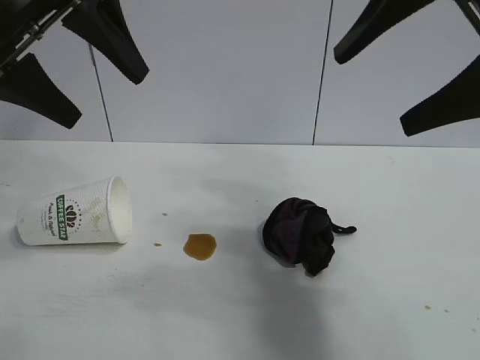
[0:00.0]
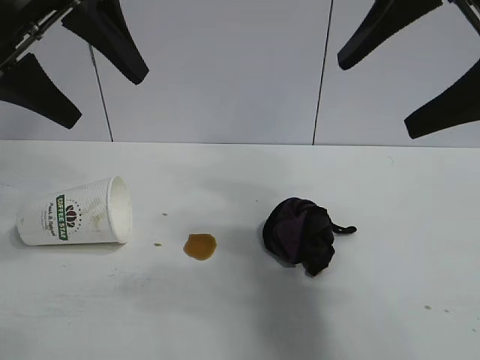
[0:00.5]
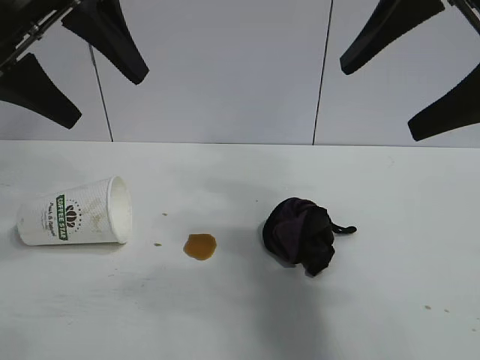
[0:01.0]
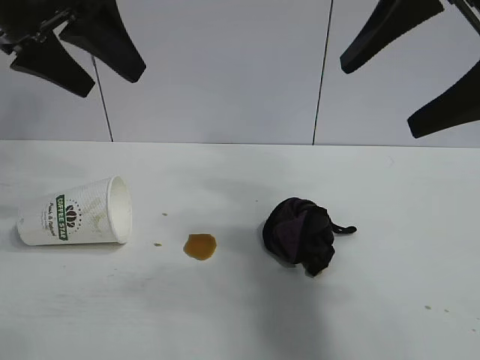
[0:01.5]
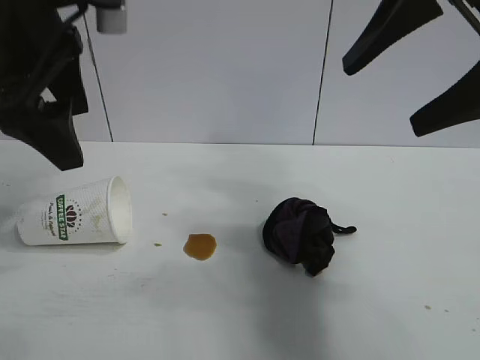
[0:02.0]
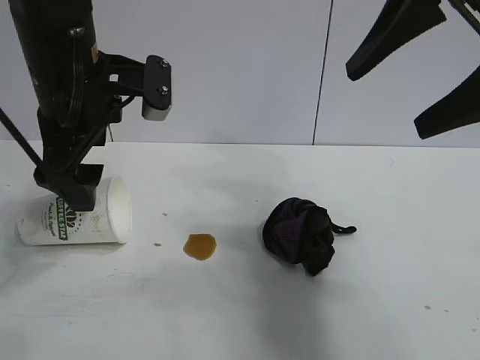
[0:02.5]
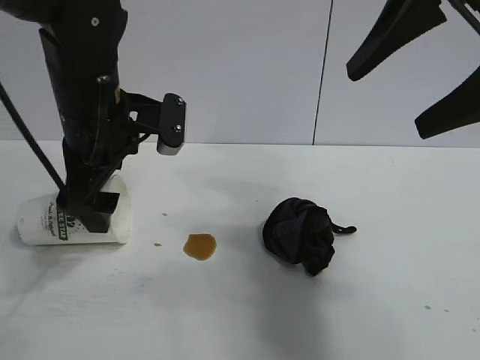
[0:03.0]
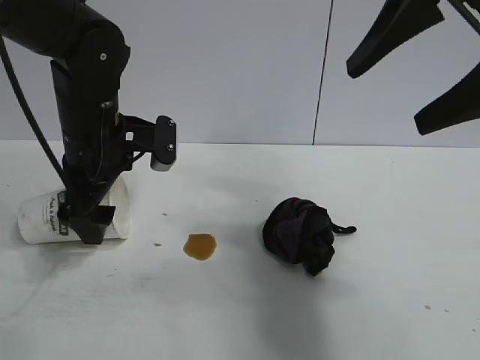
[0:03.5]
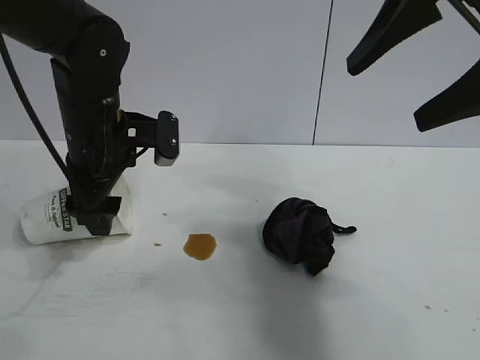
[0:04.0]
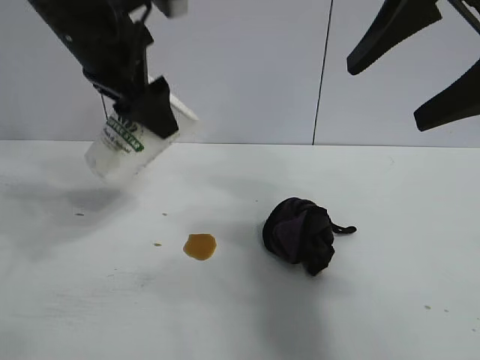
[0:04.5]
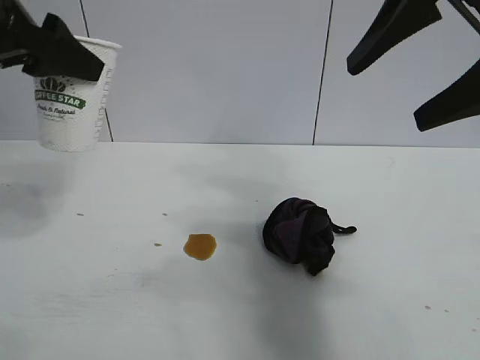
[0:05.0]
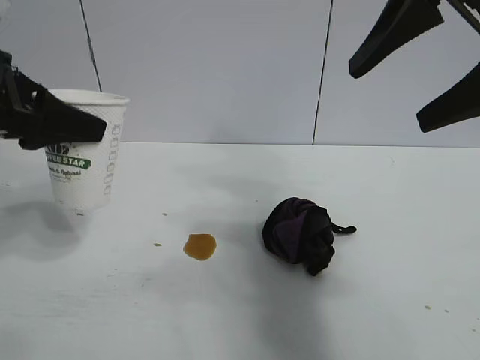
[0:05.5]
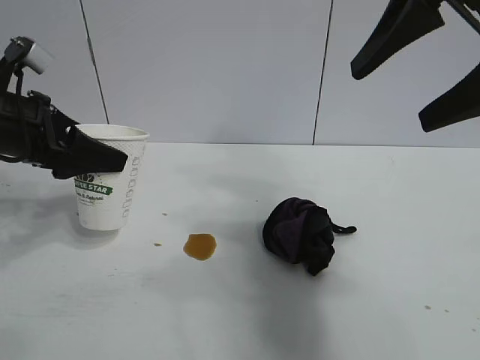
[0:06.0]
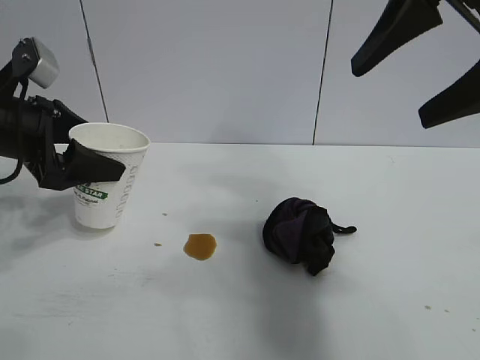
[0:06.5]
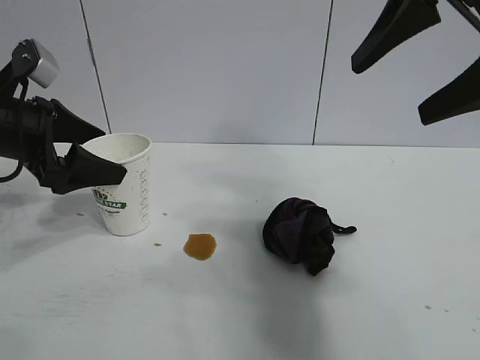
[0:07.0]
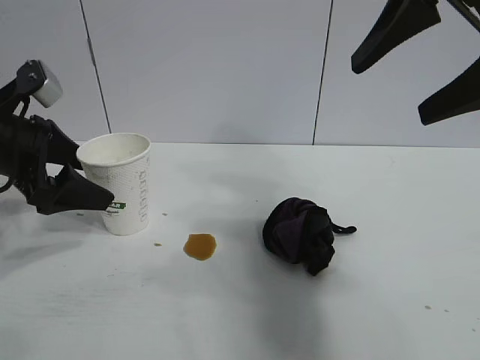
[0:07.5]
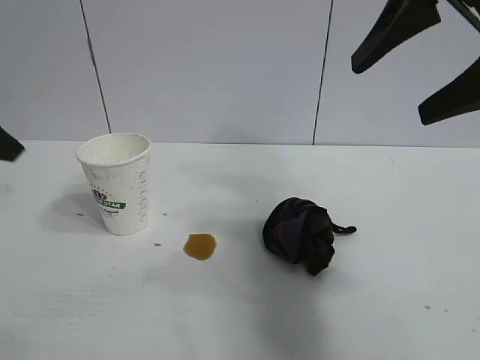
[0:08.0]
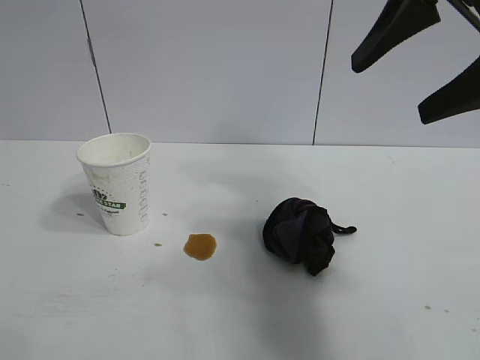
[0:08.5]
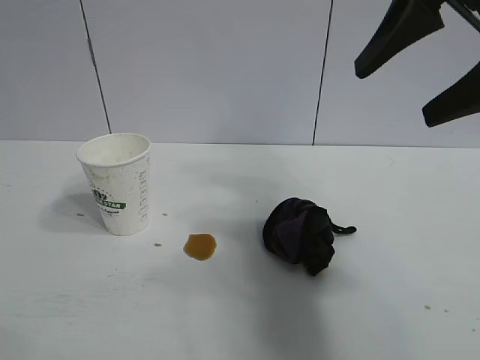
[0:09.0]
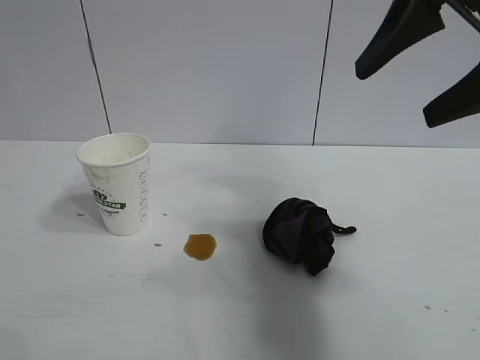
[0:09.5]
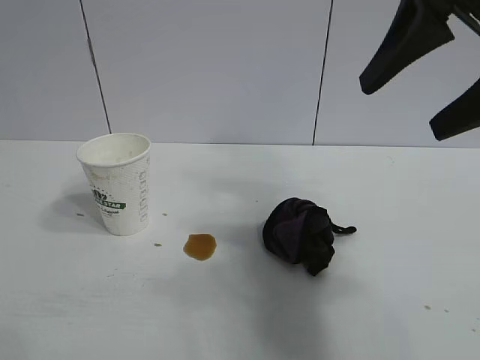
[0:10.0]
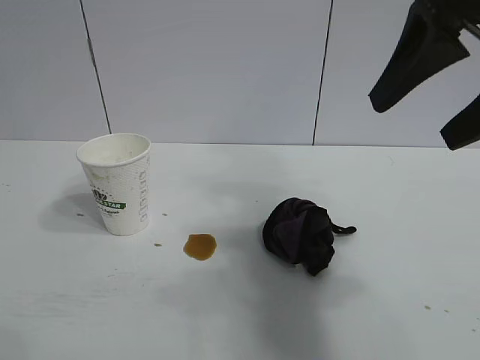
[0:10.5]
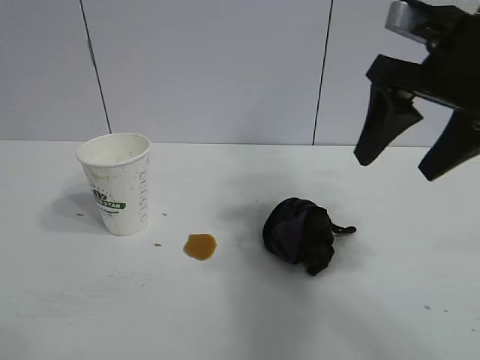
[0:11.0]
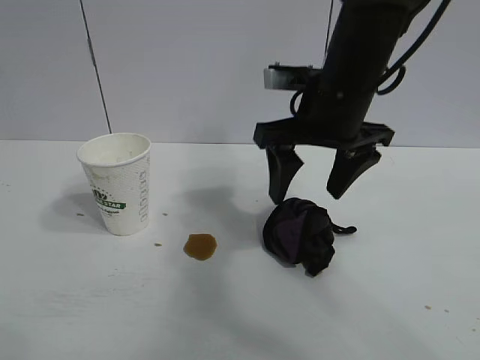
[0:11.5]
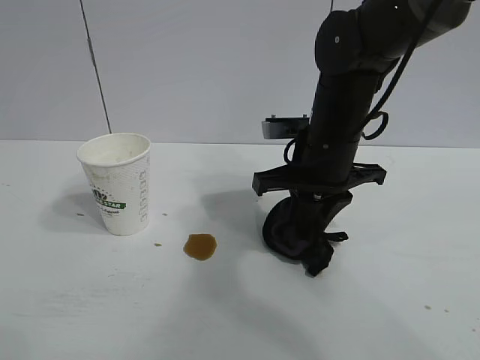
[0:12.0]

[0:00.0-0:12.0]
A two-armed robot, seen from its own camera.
Task of the whole recording: the left gripper pick up the fallen cup and place it upright, the right gripper grasp the black rag and wipe the stain on the table, the right gripper put the black rag back in its original position.
Step, 0:00.0 to 0:03.5: Grasp the paper cup with left gripper.
Step, 0:04.0 to 0:06.5: Stand the paper cup upright with left gripper.
Step, 0:07.0 to 0:12.0: Grasp the rag with right gripper.

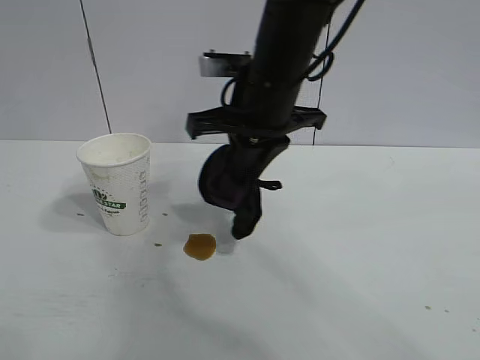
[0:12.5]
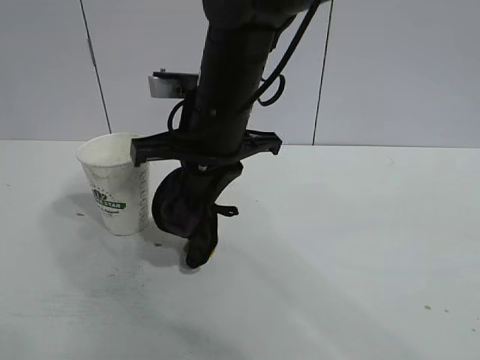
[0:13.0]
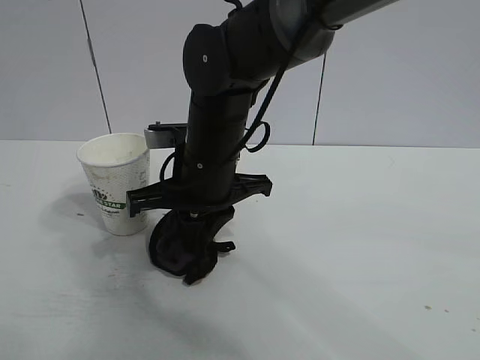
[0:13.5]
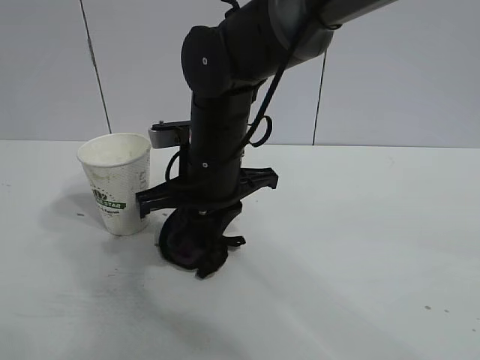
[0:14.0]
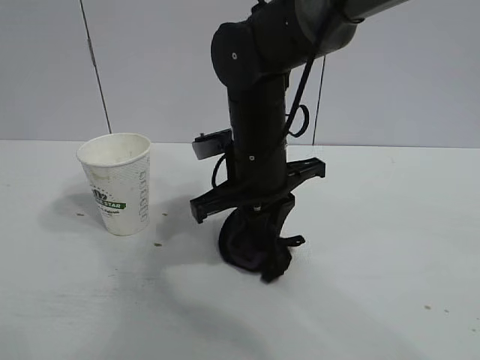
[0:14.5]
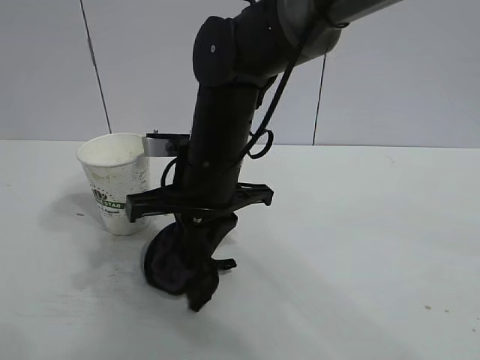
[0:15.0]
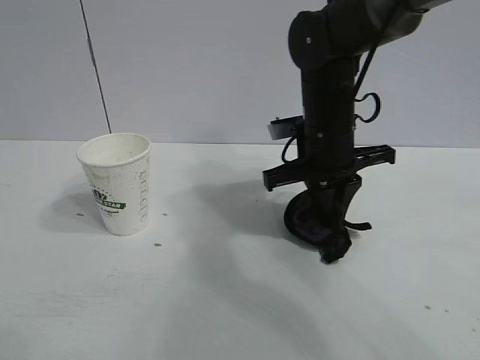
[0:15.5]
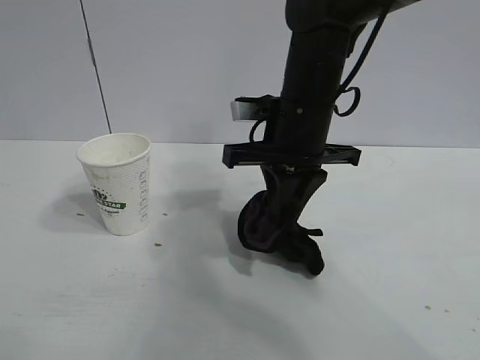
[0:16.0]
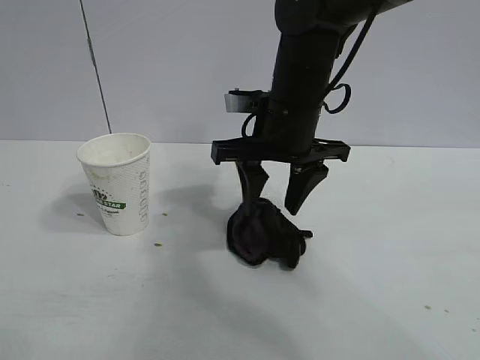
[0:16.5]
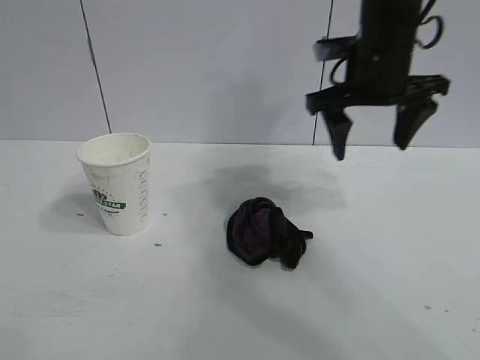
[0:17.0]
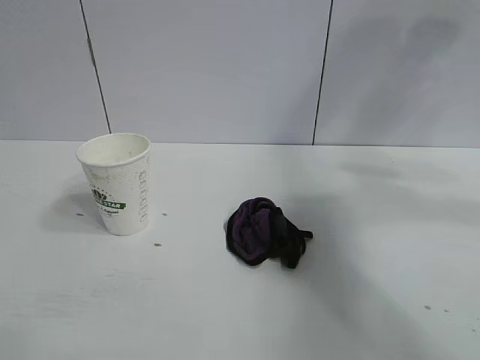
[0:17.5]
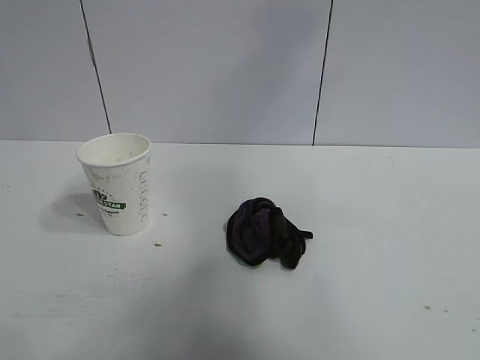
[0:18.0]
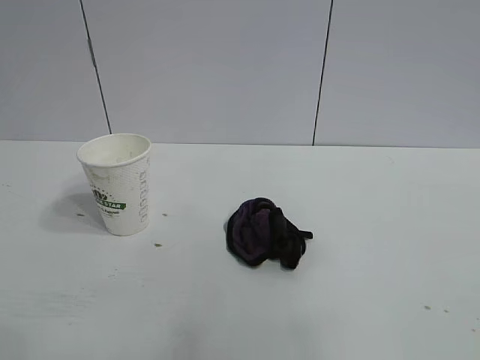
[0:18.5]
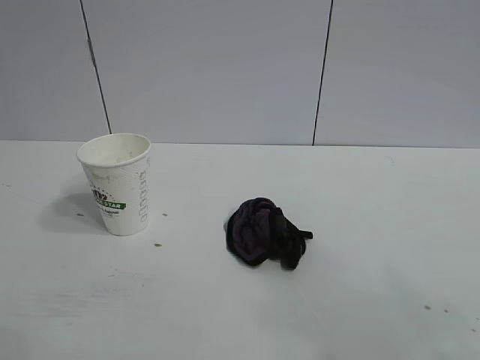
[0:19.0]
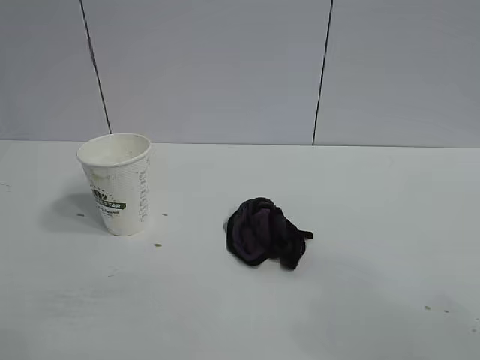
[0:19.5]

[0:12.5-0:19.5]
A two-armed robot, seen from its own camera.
Task of the whole recording: the left gripper pick up the fallen cup and place it upright, the right gripper grasp the black rag and wipe the stain on the table, the right gripper put the black rag back in its original position.
Step, 0:12.5 to 0:15.5: Wipe the stains off the table with the rag with right gripper.
Step, 0:16.0 to 0:16.5: Place the rag on the table with right gripper.
